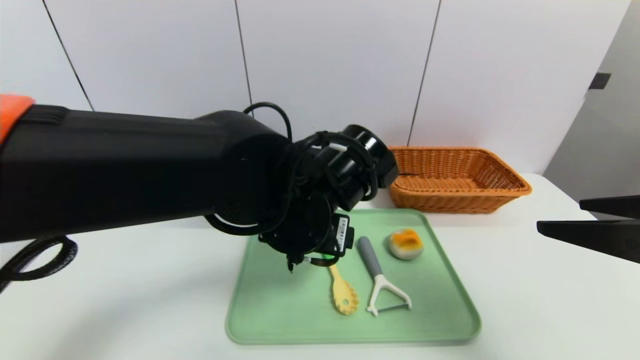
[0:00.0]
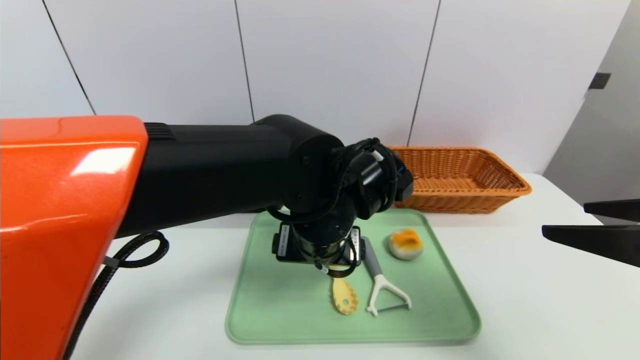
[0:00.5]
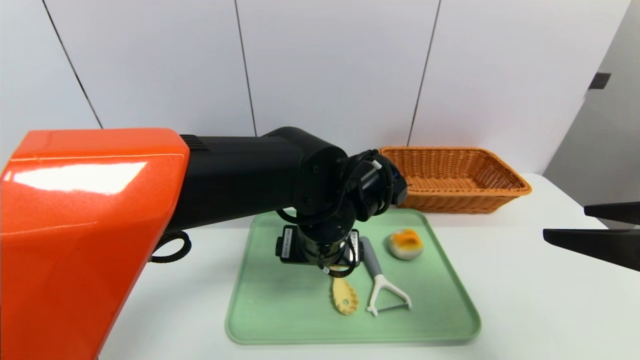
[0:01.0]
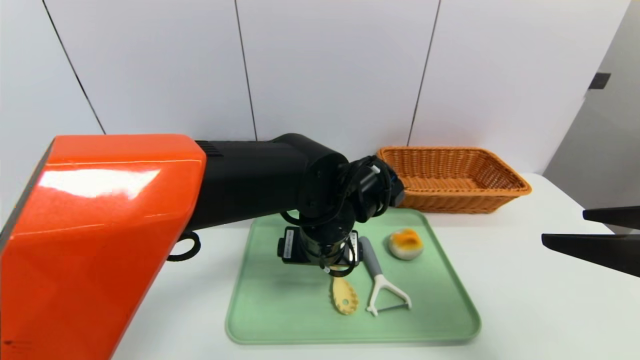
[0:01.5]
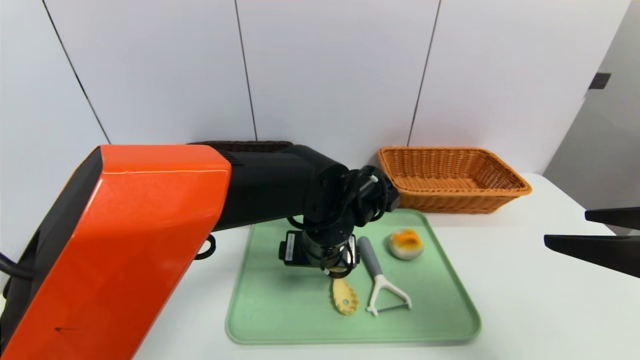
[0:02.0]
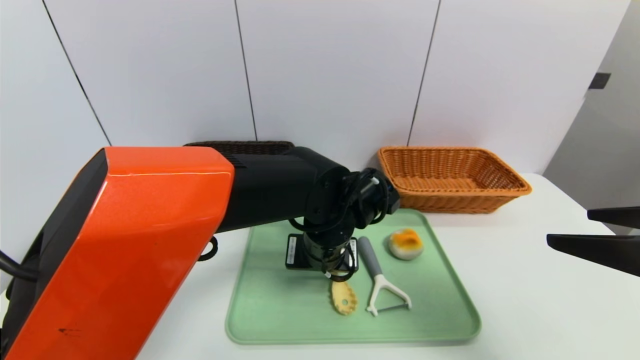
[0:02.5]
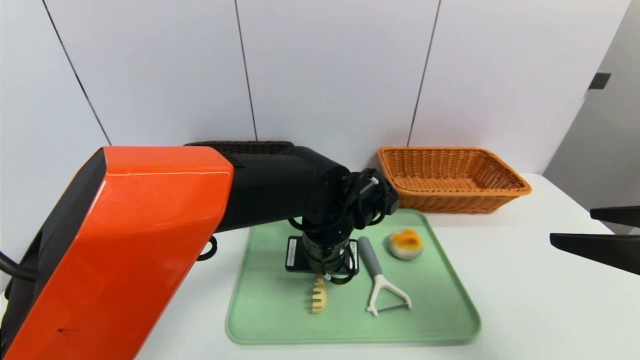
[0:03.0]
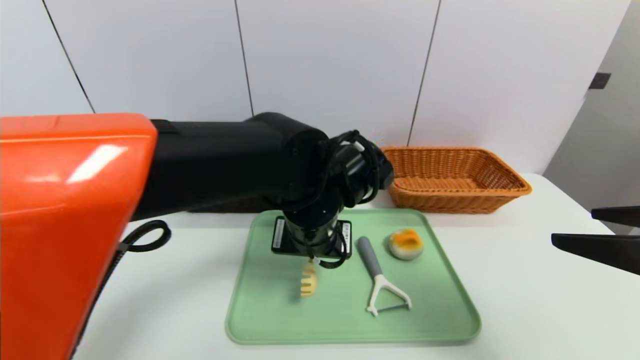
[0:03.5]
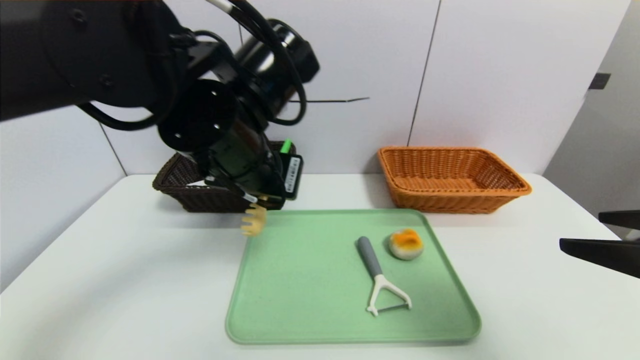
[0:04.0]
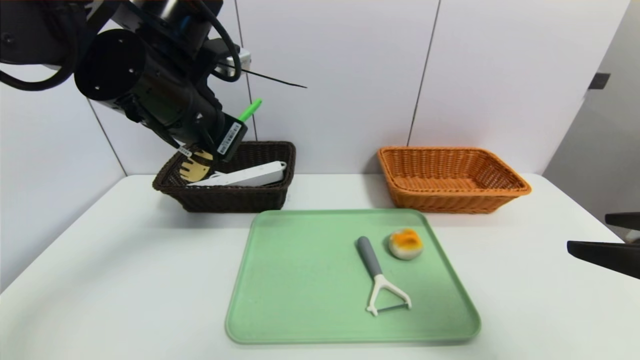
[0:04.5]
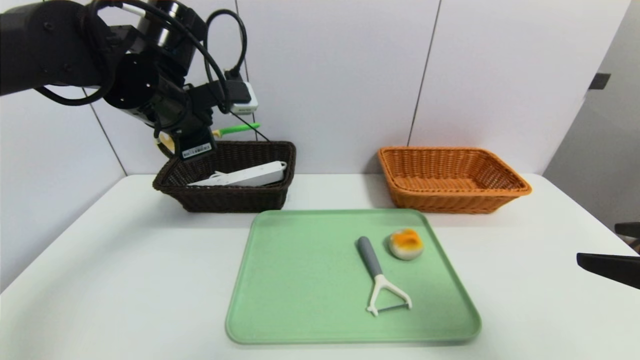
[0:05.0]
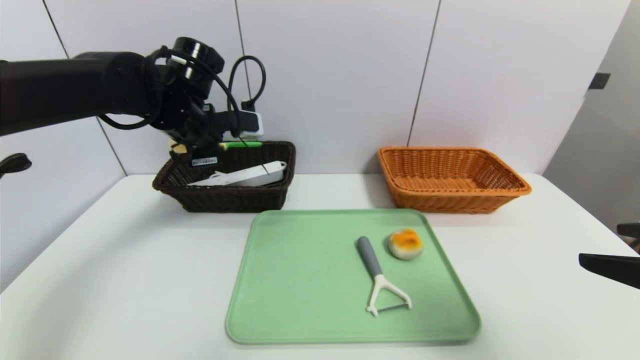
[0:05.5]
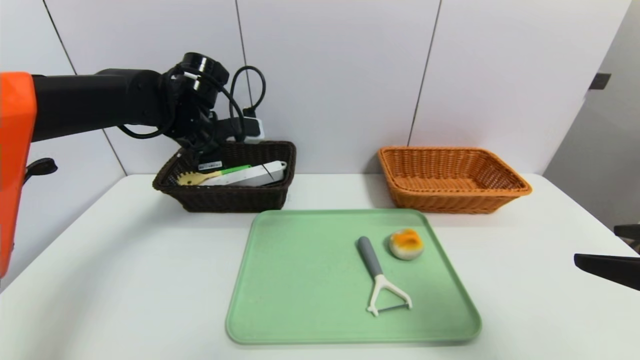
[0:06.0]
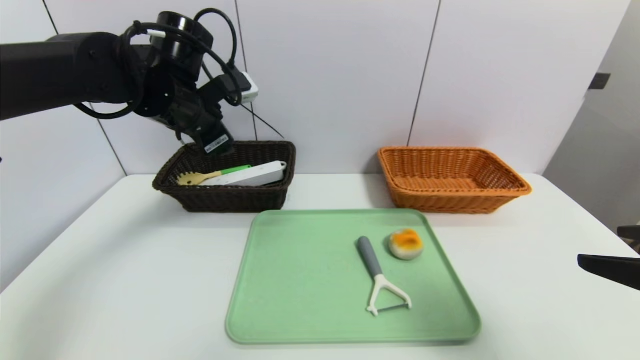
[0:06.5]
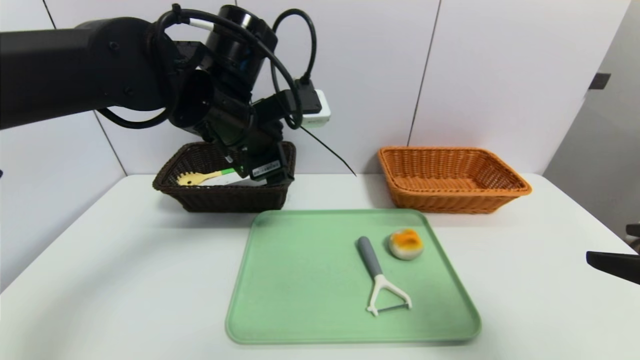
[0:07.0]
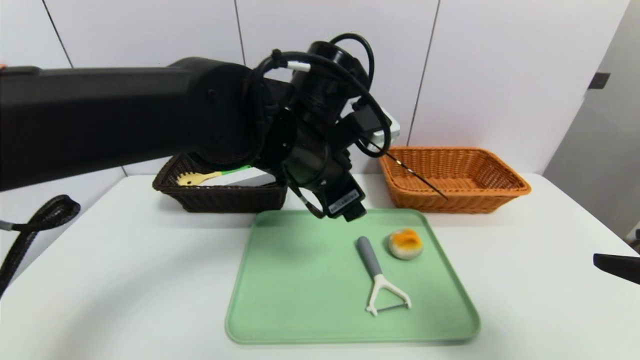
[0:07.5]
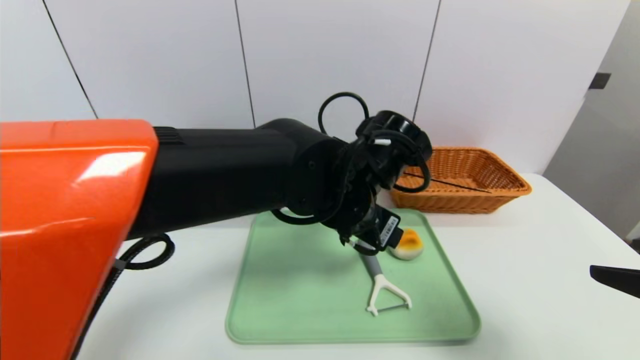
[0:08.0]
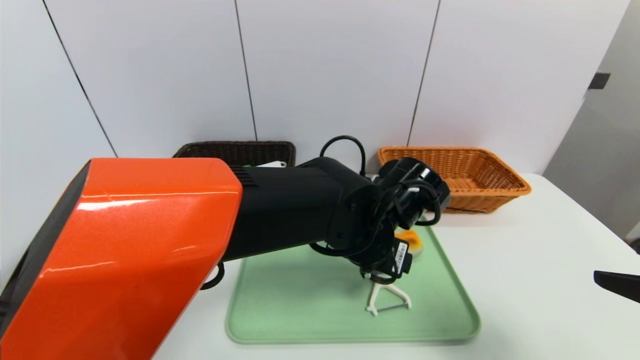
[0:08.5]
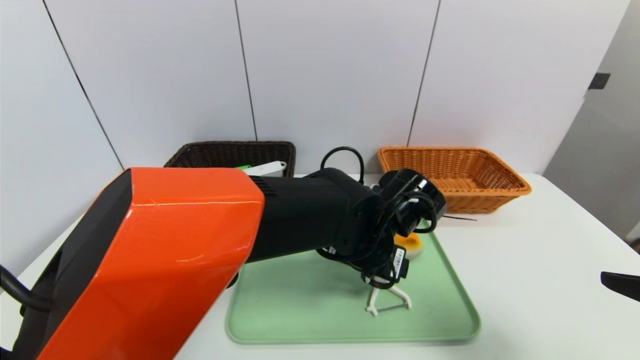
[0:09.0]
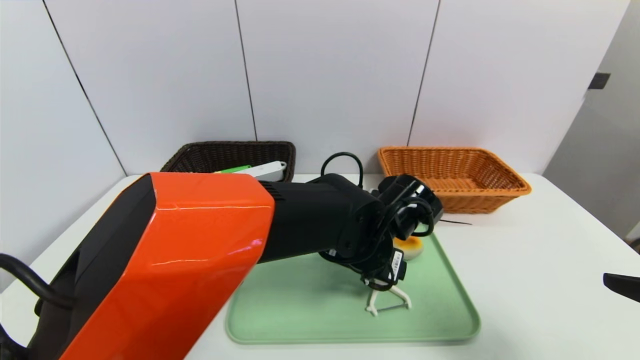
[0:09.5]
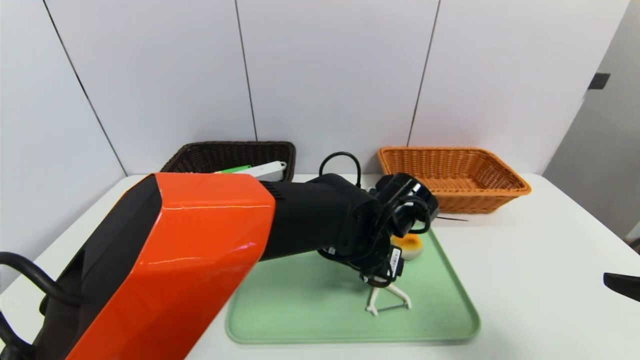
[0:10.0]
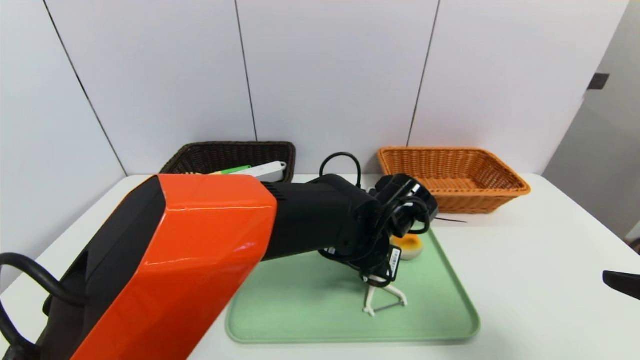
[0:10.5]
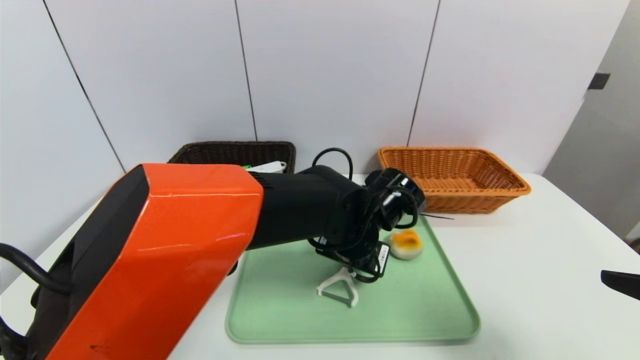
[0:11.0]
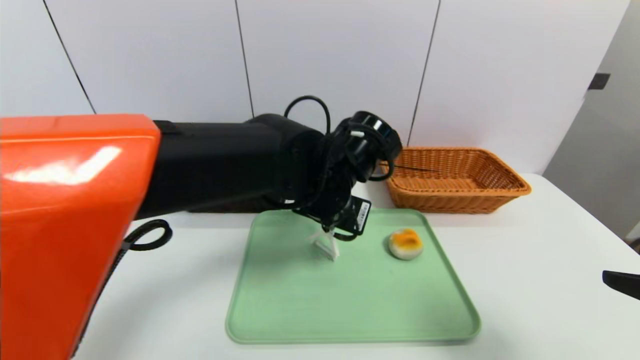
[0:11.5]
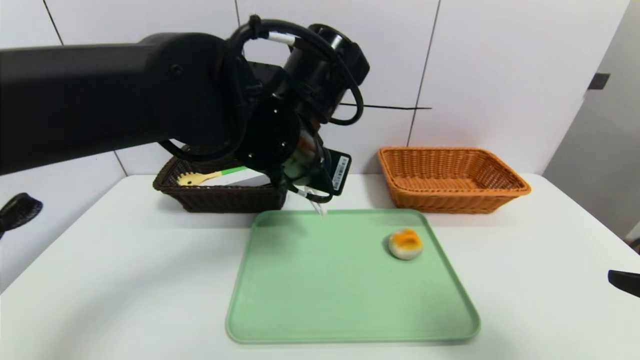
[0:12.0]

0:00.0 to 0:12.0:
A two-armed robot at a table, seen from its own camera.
Task of the whole recording: place the food in the right basket with the right gripper, and place the non food items in the left basket with the left gripper.
Step, 0:00.0 to 0:06.0: Grasp the back scratcher and put it in the left basket.
0:00.0 to 0:02.0: The left gripper is displaced downward by some 5 cm.
0:02.0 to 0:04.0: The left gripper travels upward and to the left by approximately 20 cm, and closes.
0:04.0 to 0:06.0: The left gripper travels forward and to the left by approximately 20 cm, and opens its fingers.
0:06.0 to 0:08.0: The left gripper travels to the right and backward by some 25 cm, and opens.
0:08.0 to 0:10.0: The left gripper travels downward by roughly 5 cm.
0:10.0 to 0:12.0: The left gripper moves upward and to the left, approximately 20 cm, and closes its fingers.

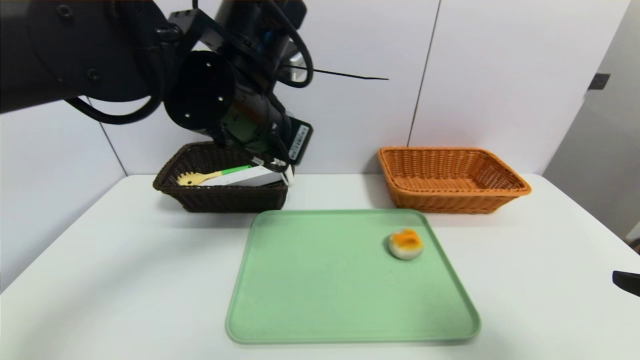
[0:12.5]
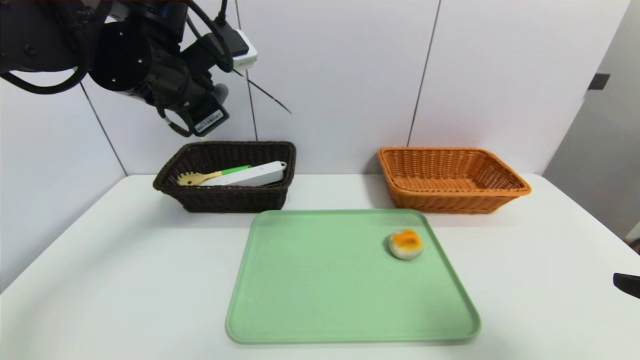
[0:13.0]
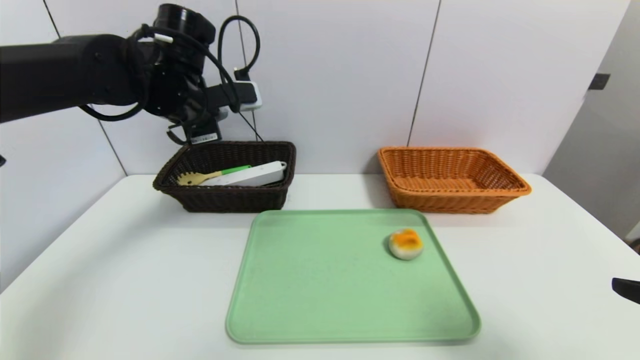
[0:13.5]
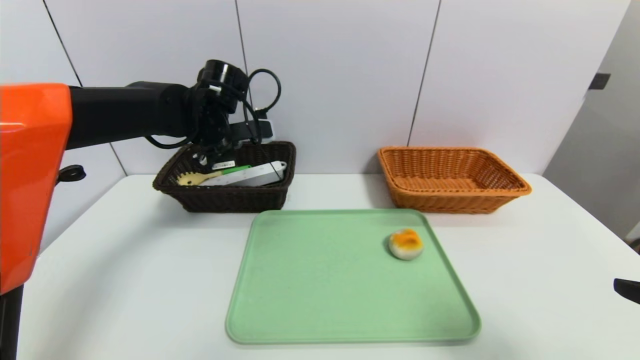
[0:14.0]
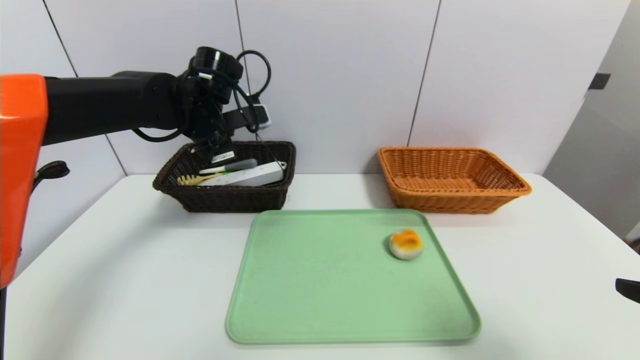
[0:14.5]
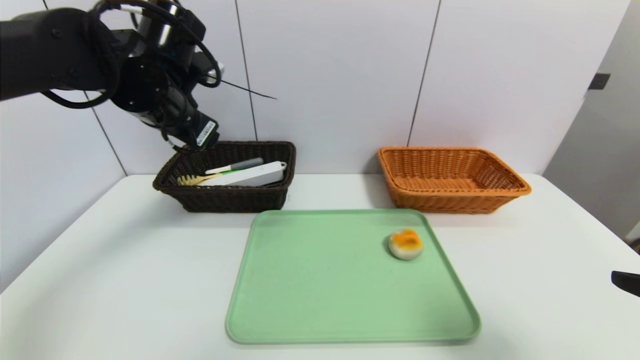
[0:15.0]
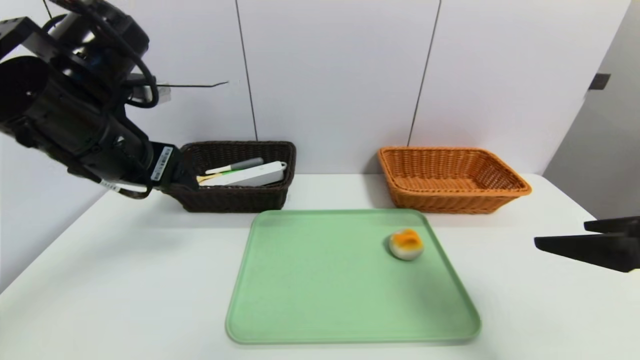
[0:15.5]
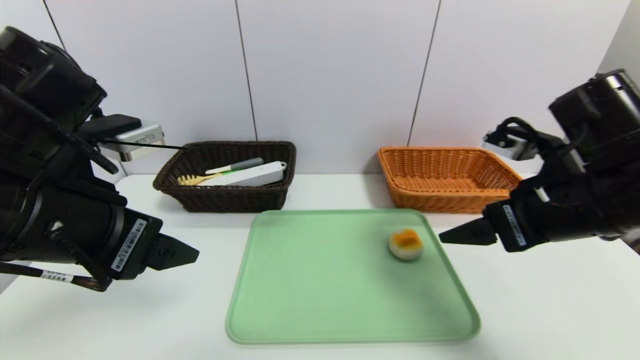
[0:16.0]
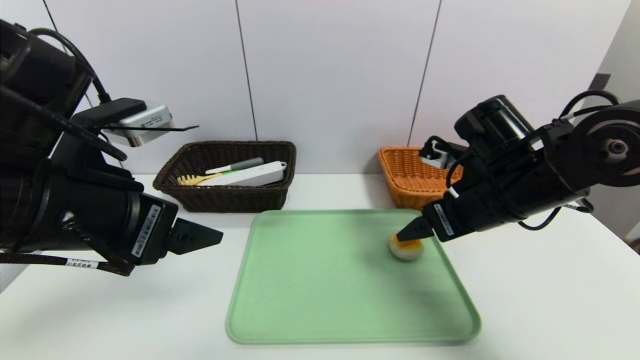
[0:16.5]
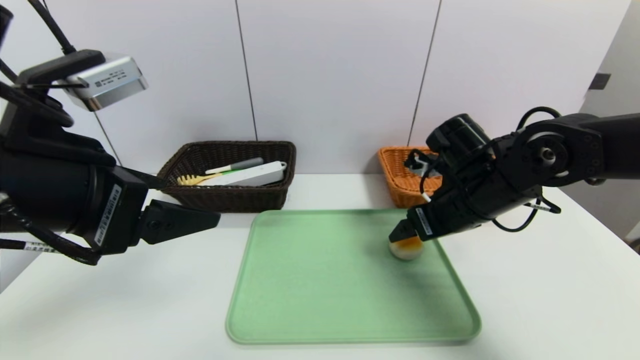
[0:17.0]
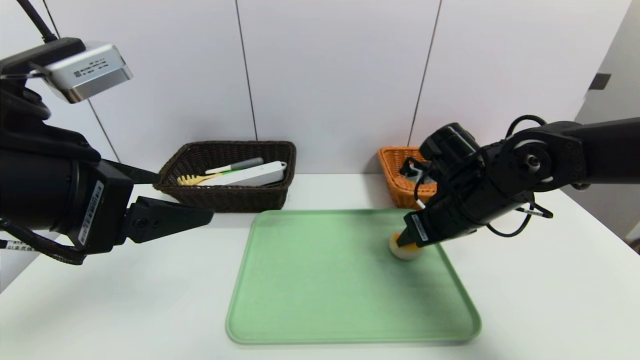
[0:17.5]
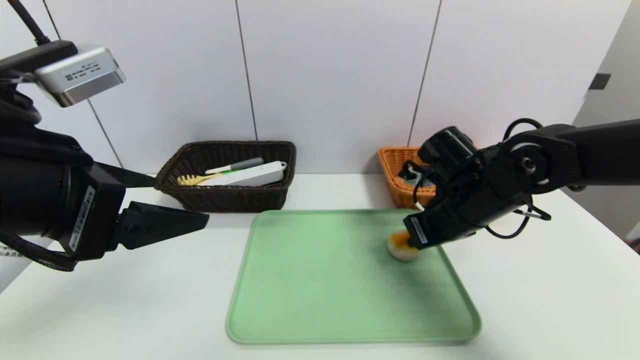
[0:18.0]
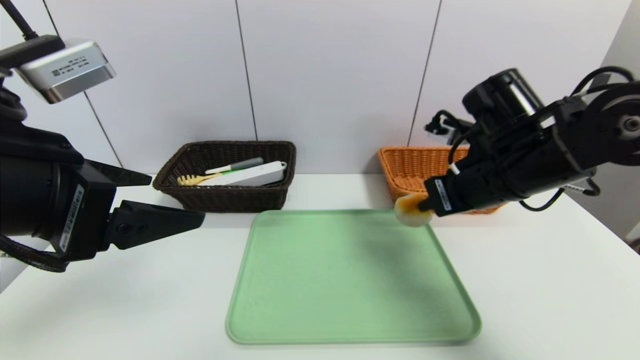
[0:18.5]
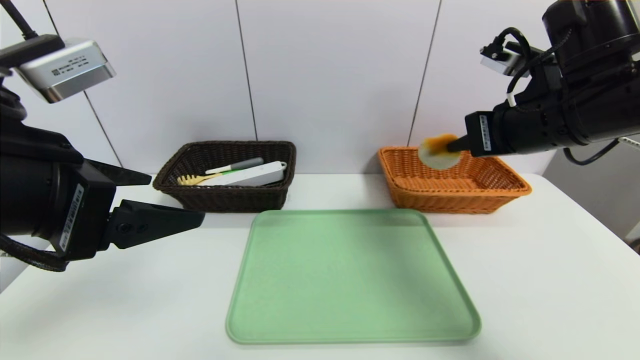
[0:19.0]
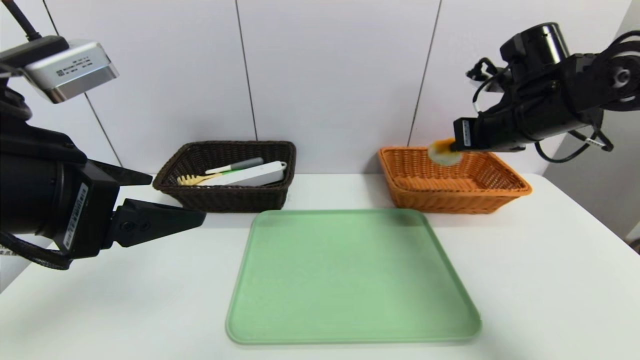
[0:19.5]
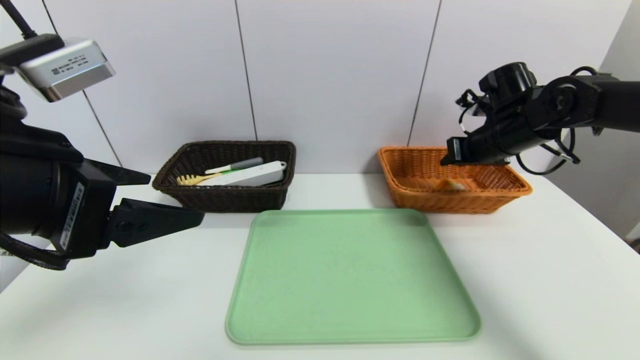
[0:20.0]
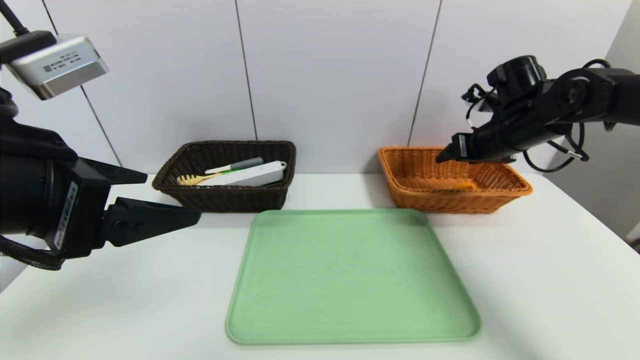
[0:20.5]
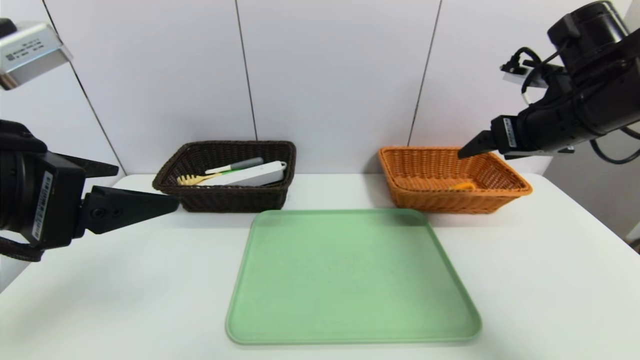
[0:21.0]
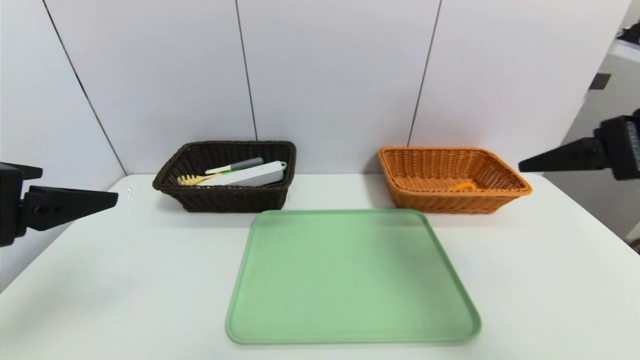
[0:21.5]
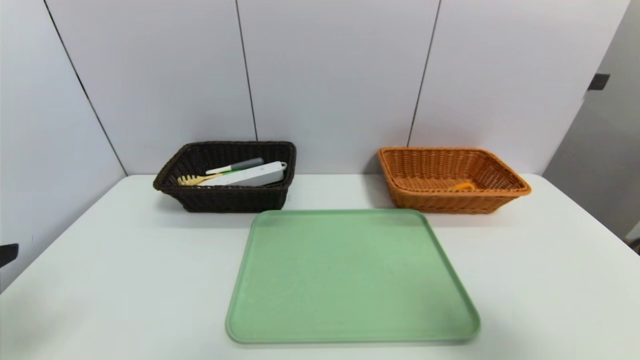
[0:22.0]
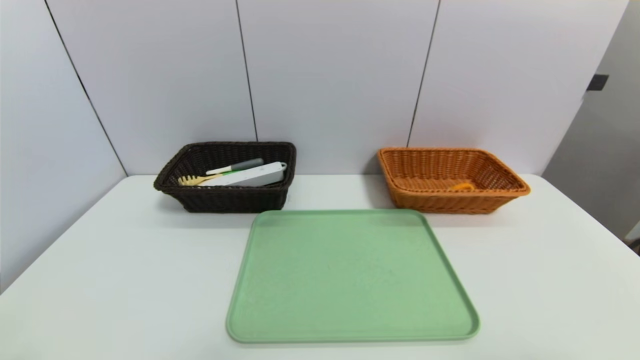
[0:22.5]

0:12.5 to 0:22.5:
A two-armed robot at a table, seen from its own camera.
Task of the whole recording: place the food in the right basket with the right gripper, and place the non food items in the left basket with the left gripper.
Step, 0:12.5 to 0:14.5: Grasp the peeler and put it in the left basket.
Step, 0:15.0 to 0:20.0: Grasp the egg beater and put it in the right basket.
0:12.5 to 0:14.5: The left gripper goes about 15 cm forward, to the left and downward, and opens up.
0:14.5 to 0:16.5: The right gripper moves forward and to the left, some 25 cm. Meanwhile the left gripper moves backward, about 25 cm.
0:16.5 to 0:18.5: The right gripper closes up.
0:18.5 to 0:20.5: The right gripper moves forward and to the right, some 15 cm, and opens up.
0:20.5 to 0:22.5: The left gripper moves backward, to the left and downward, approximately 20 cm; the right gripper heads backward, covering about 40 cm.
